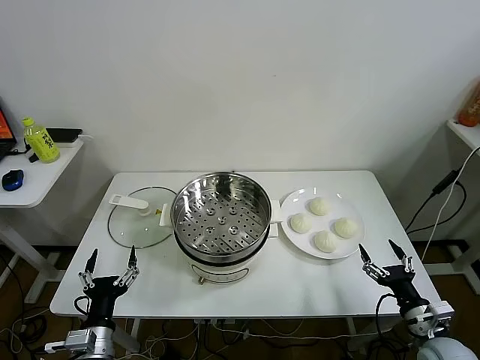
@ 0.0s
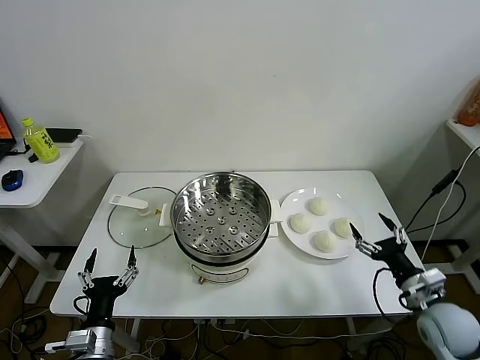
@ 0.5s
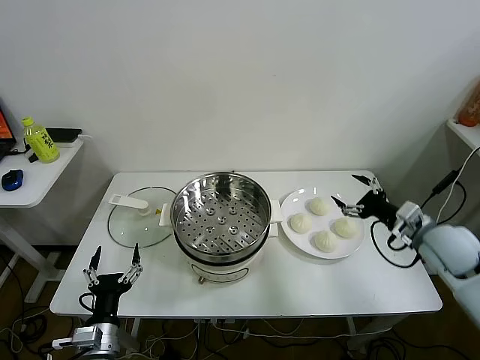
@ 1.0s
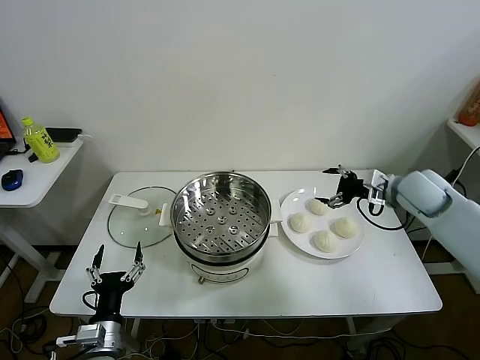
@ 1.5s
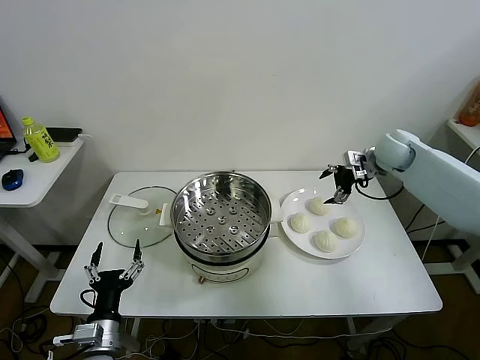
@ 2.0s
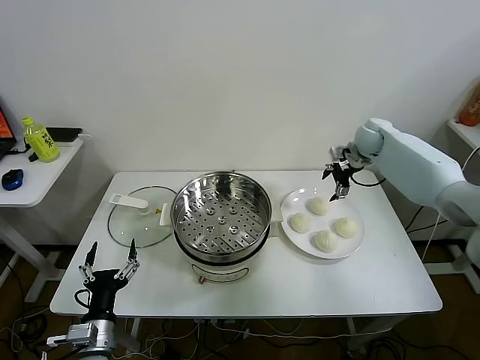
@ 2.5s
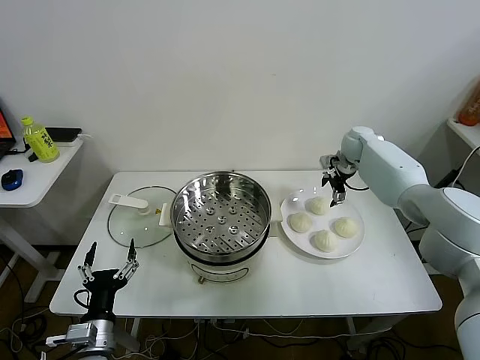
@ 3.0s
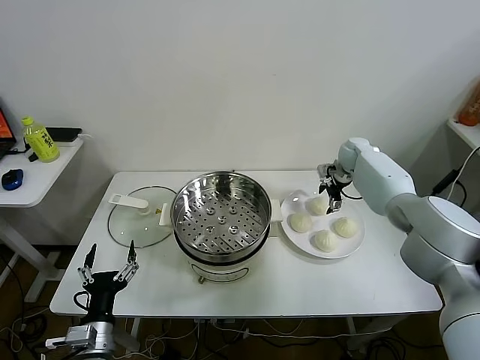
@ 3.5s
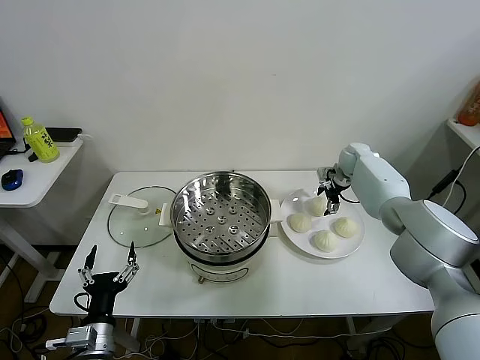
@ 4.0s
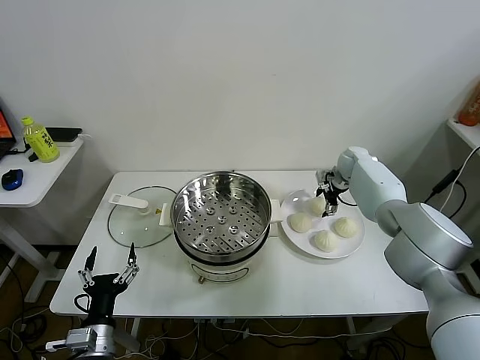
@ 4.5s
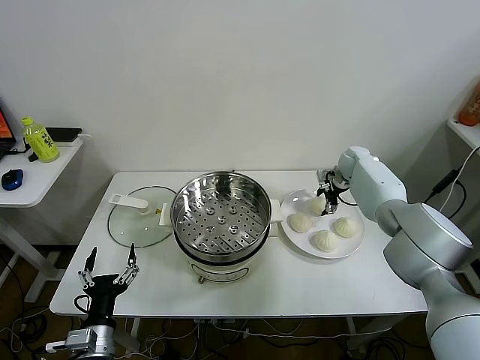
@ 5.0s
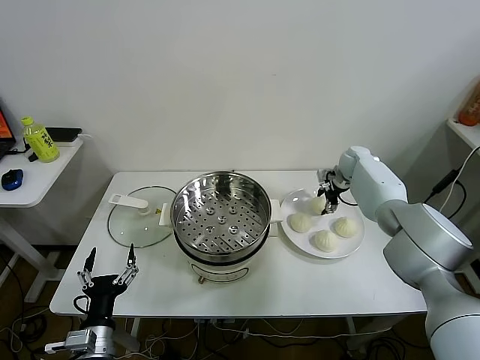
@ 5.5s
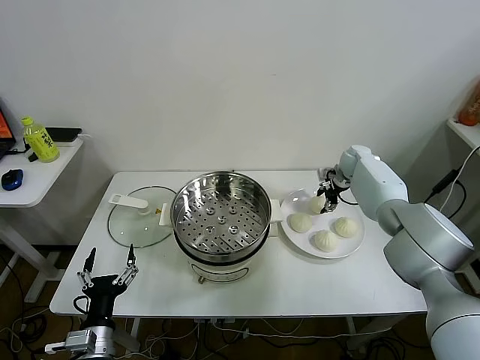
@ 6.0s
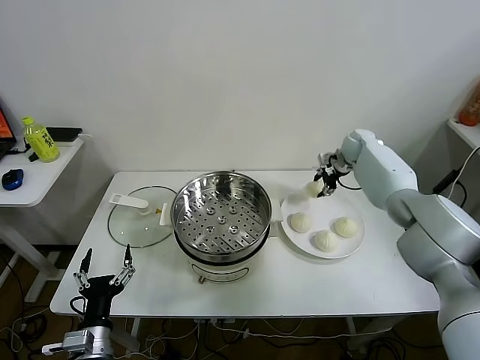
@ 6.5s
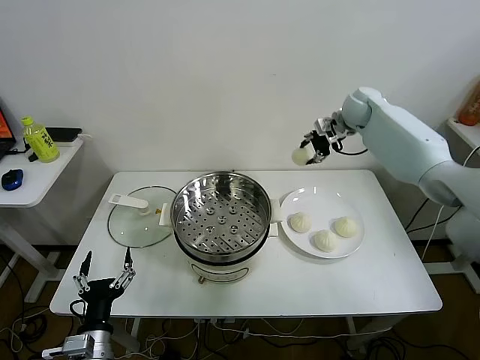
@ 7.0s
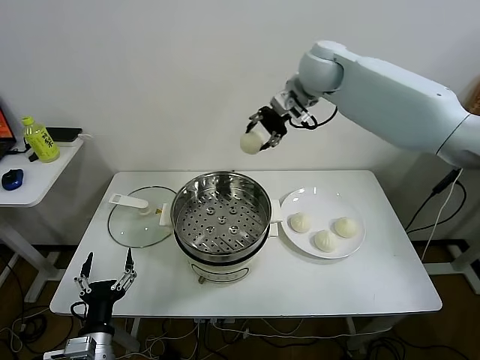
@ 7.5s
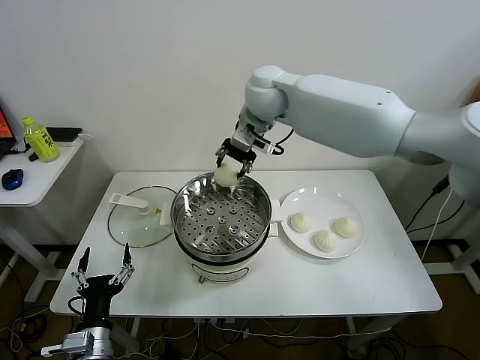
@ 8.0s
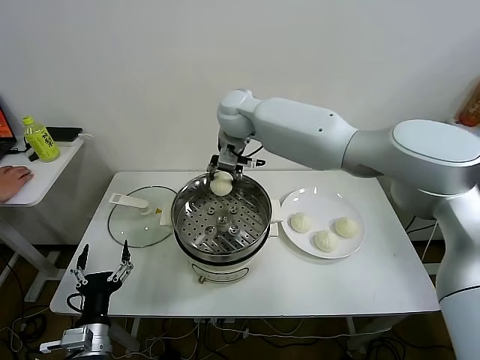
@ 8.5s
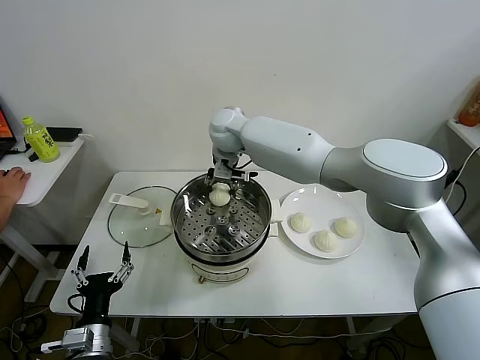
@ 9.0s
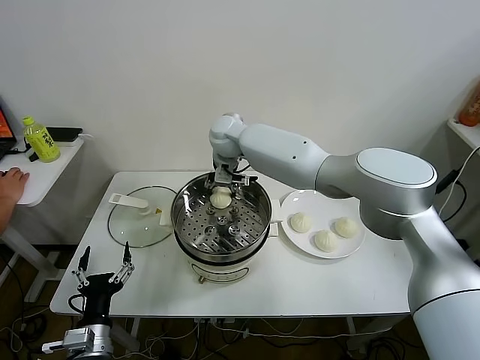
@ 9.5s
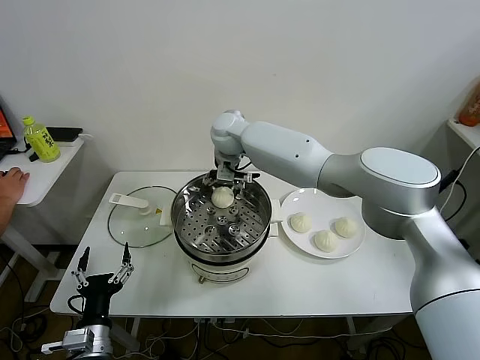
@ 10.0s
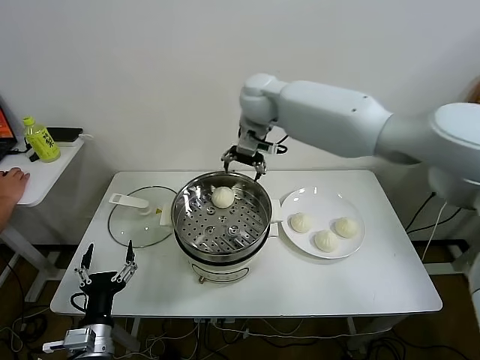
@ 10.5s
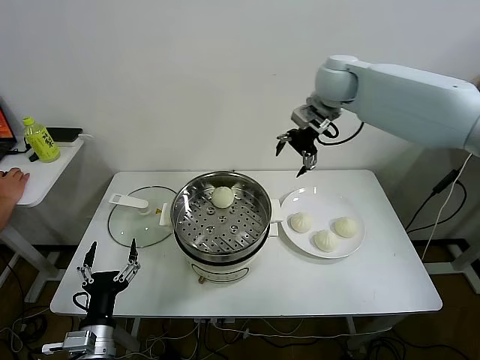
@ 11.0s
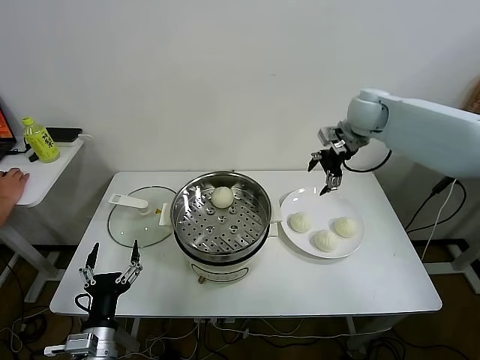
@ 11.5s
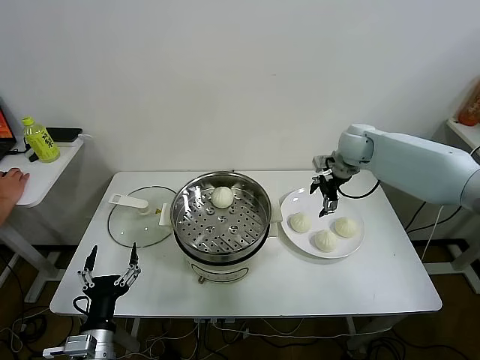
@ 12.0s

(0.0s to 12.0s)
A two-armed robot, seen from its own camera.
Task of the whole recording: take steamed baozi put them in steamer.
Step, 0.0s - 5.0s: Grasp the baozi in the plate with right gripper.
Step, 5.5s - 9.5s: Place the baozi on the steamer with right gripper.
2.0s - 4.0s: The right gripper heads downward and forward, covering about 15 cm.
4.0s - 6.0s: The right gripper closes up.
6.0s - 8.0s: The right gripper shifts some 40 cm to the left and upward.
8.0s - 10.0s: The right gripper is displaced downward and to the left by about 10 cm, and opens up.
10.0s - 12.0s: The right gripper shifts roughly 30 cm to the right.

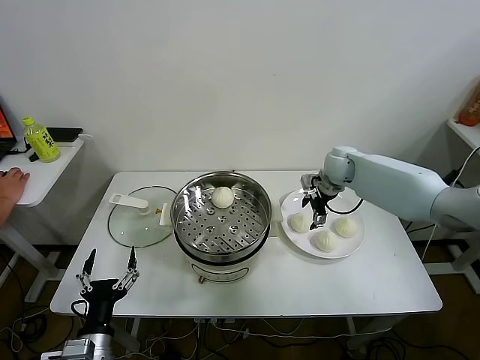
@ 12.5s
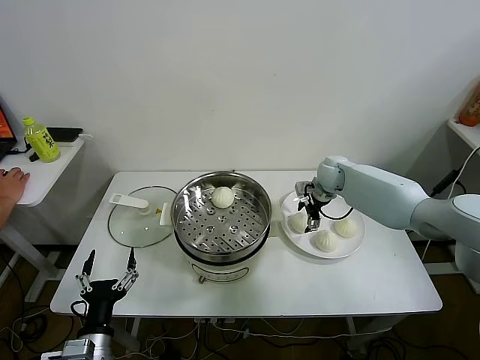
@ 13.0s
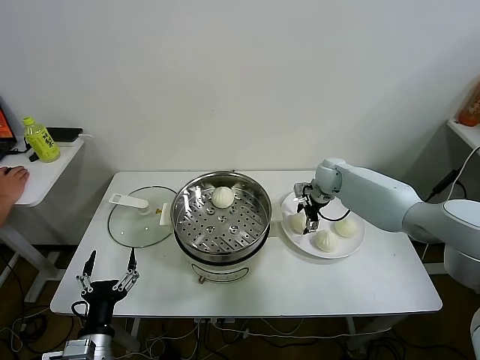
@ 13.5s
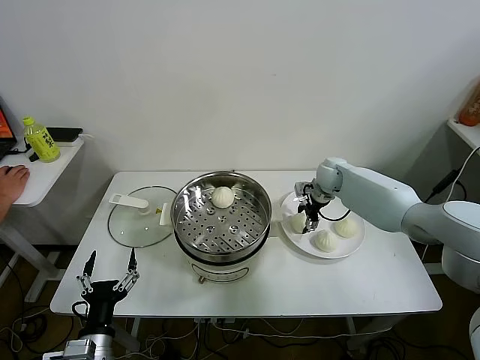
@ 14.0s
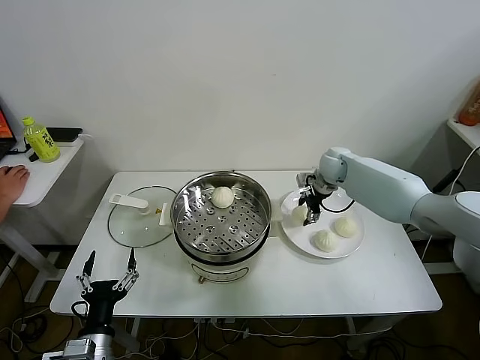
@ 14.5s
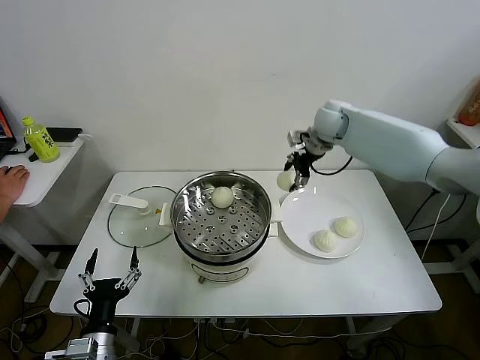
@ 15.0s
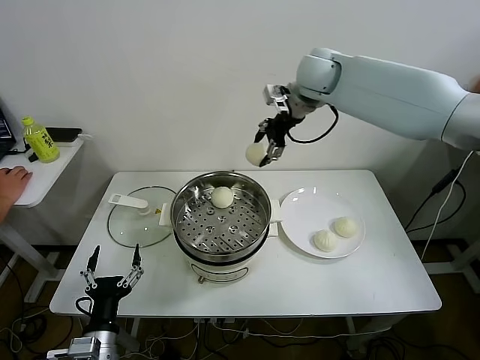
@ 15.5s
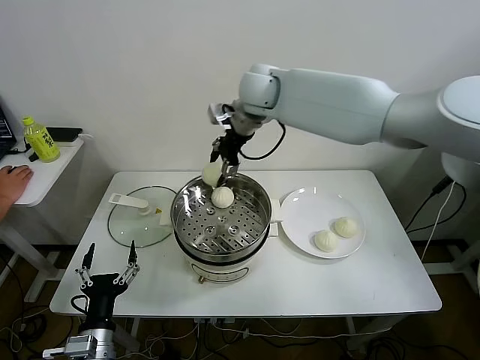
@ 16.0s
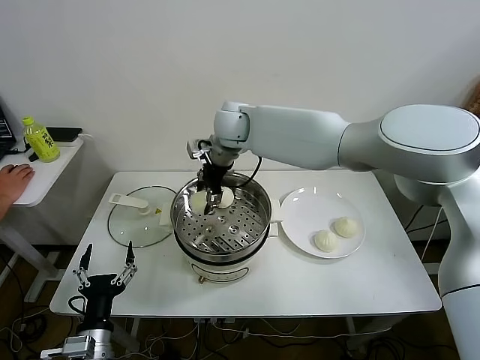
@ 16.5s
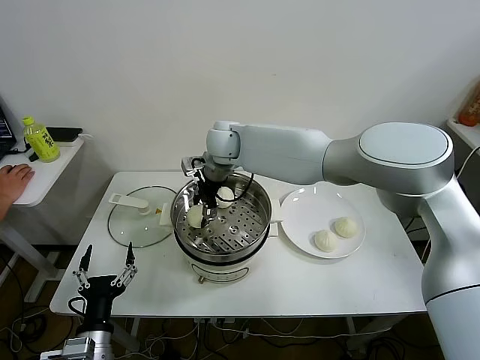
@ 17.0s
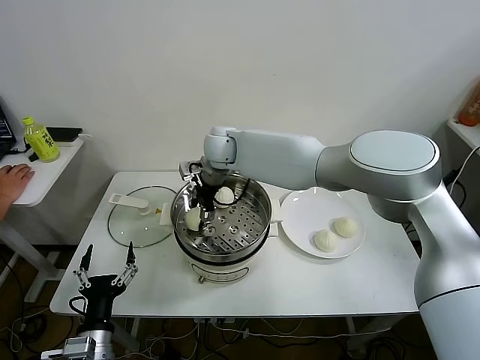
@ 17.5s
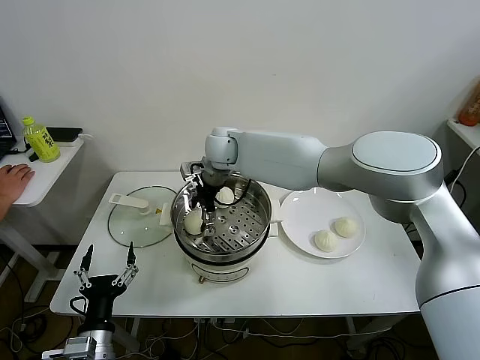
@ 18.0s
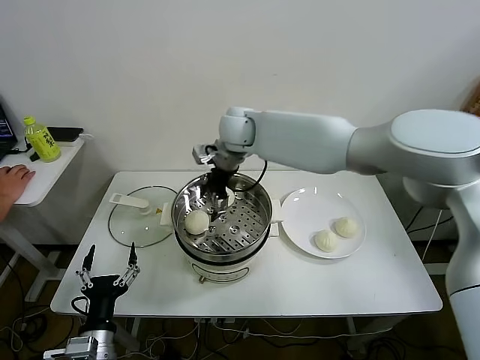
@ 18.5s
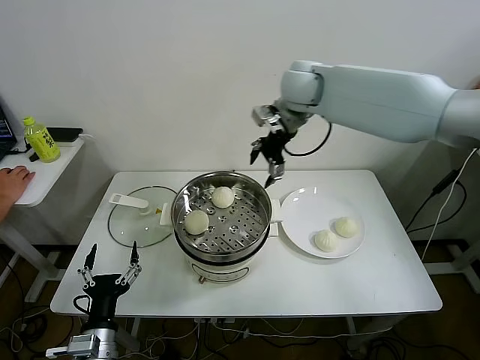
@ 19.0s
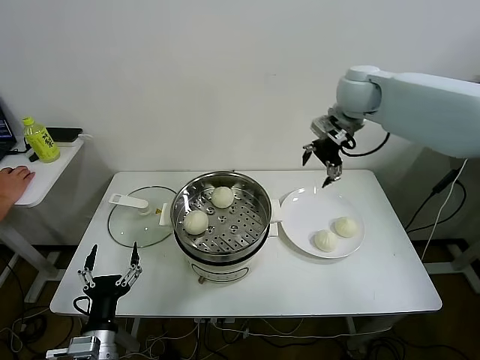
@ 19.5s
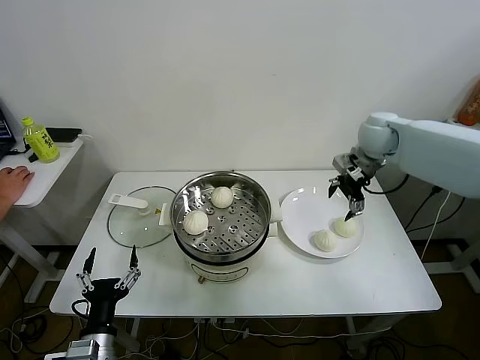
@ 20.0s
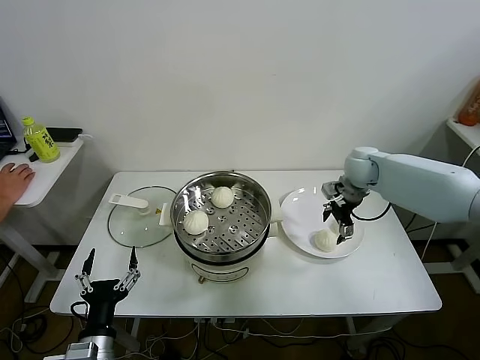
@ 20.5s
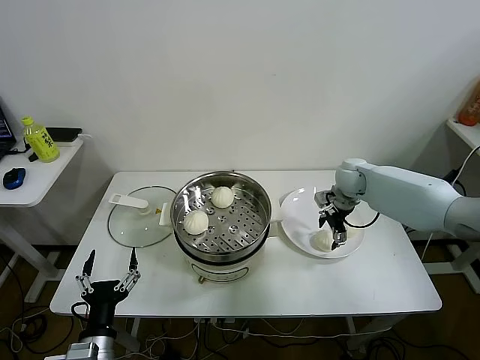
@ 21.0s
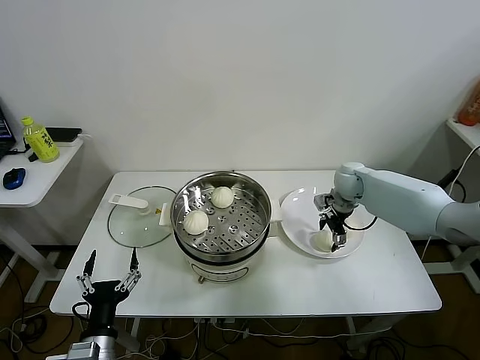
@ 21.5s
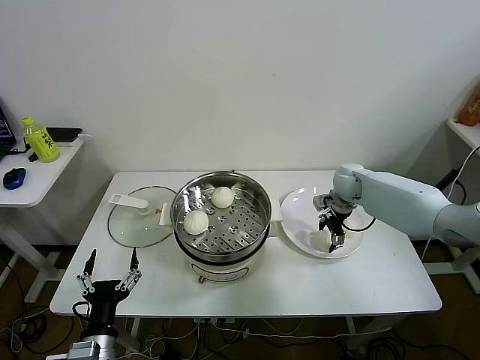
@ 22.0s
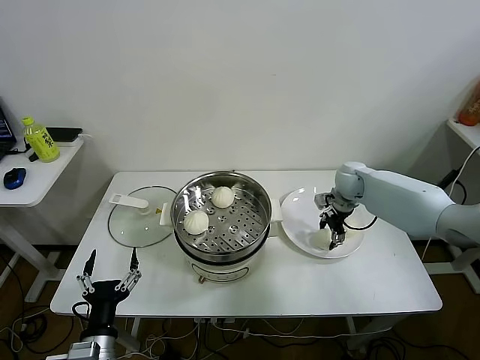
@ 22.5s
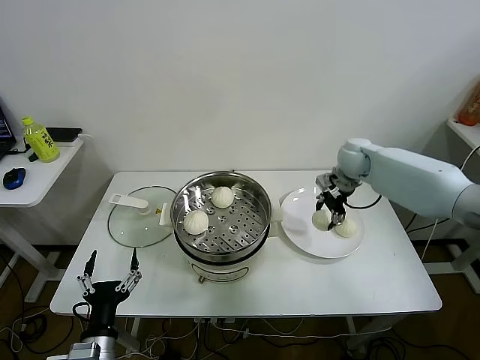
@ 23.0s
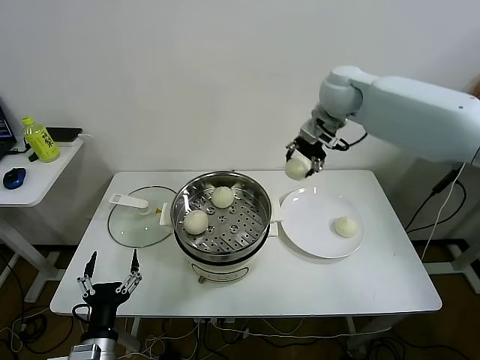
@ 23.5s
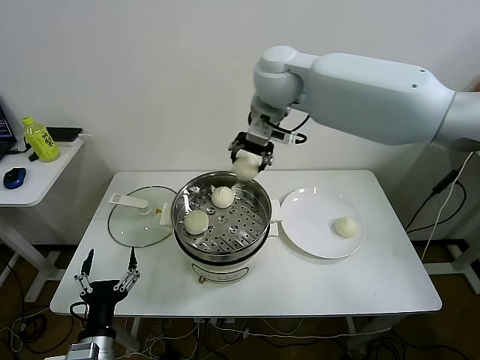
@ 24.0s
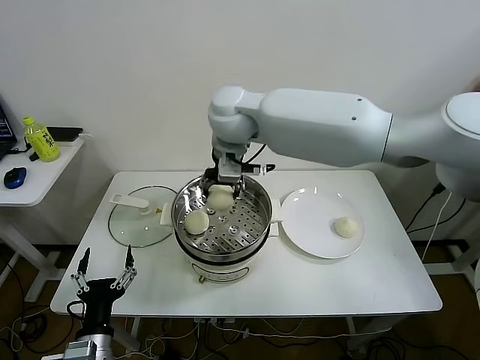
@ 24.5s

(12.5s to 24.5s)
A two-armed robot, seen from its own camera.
Task of the whole recording: take steamed baozi put them in steamer.
Step, 14.5s - 18.0s: Place the baozi on the steamer with right gripper.
Step, 18.5s - 22.0s: Grasp the baozi in the plate with right gripper.
12.5s - 14.5s: The right gripper closes.
14.5s - 16.5s: The right gripper travels to the left and upward by roughly 30 cm.
16.5s - 18.5s: The right gripper opens.
18.5s - 20.5s: The right gripper shifts about 35 cm to the right and downward.
20.5s - 22.5s: The right gripper shifts approximately 5 cm downward, and closes.
22.5s - 24.5s: The right gripper moves to the left and upward, roughly 40 cm.

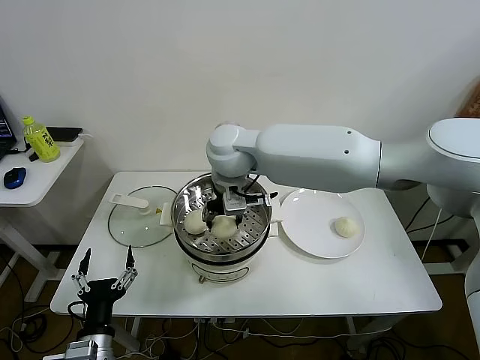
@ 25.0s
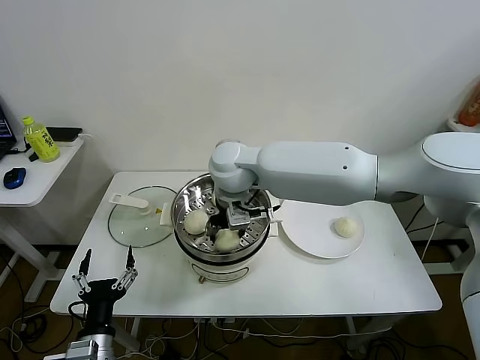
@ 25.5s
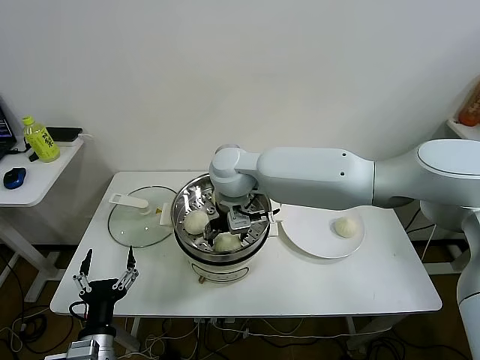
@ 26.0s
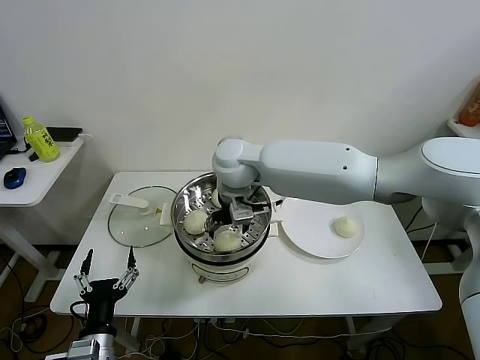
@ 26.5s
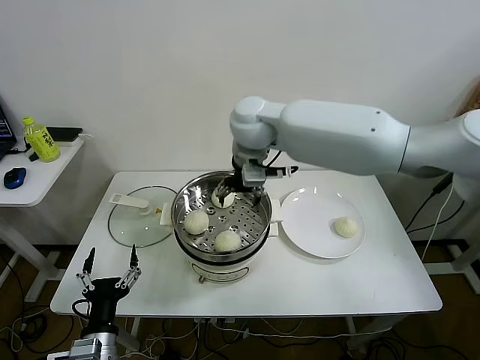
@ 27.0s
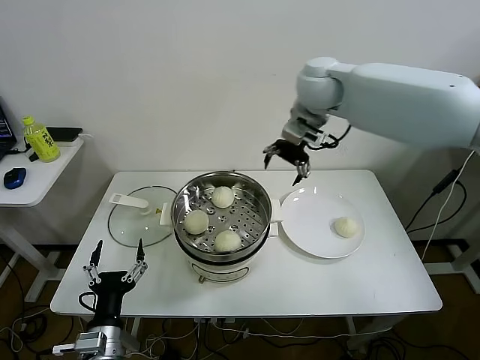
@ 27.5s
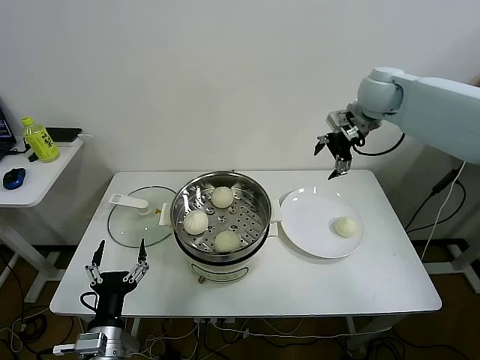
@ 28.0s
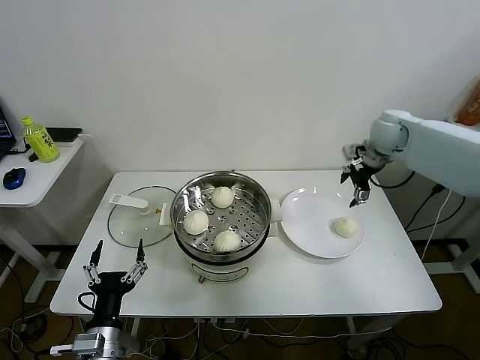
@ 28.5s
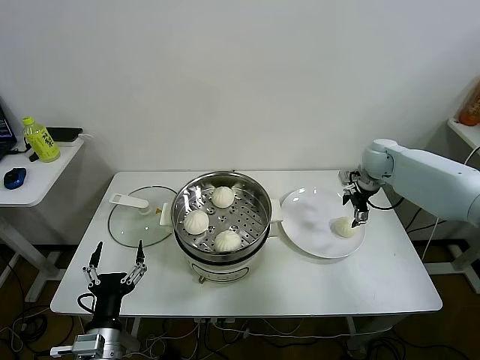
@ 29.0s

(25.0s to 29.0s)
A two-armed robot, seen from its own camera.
Task of the whole recording: take steamed baozi put them in steamer.
25.0s - 27.0s: The right gripper moves approximately 5 cm, and opens up.
27.0s - 29.0s: The right gripper heads to the right and downward, covering approximately 40 cm.
